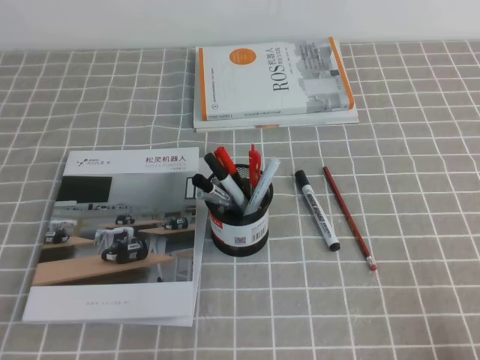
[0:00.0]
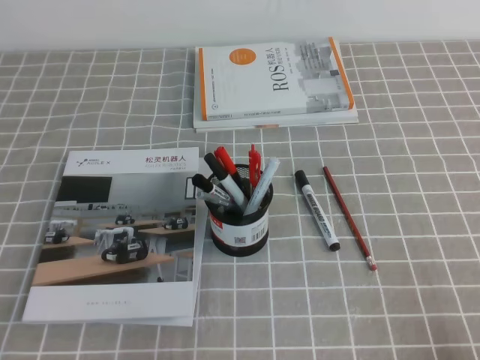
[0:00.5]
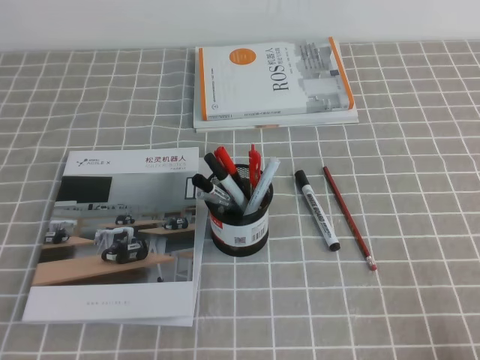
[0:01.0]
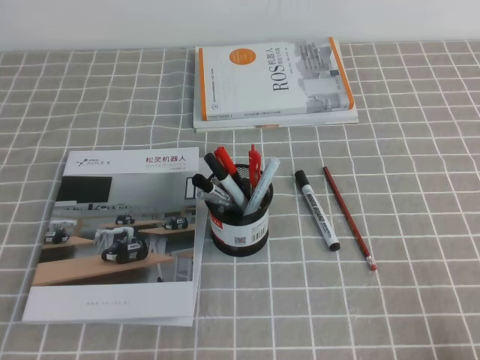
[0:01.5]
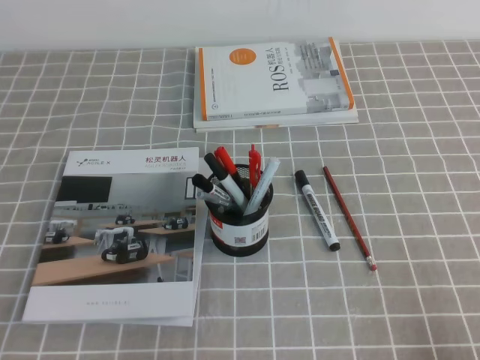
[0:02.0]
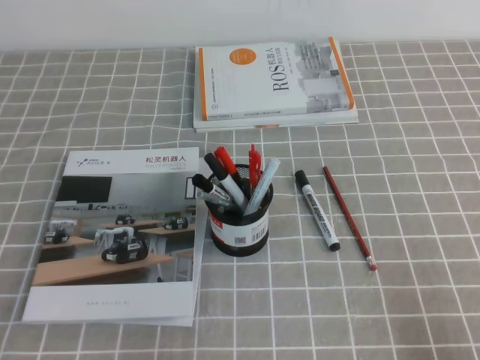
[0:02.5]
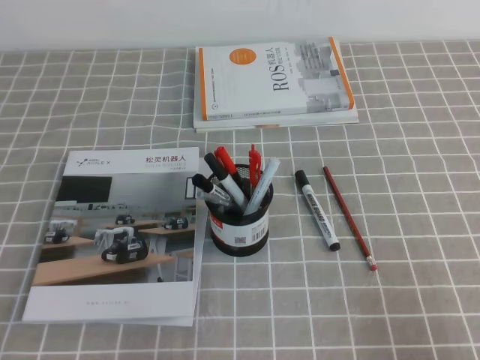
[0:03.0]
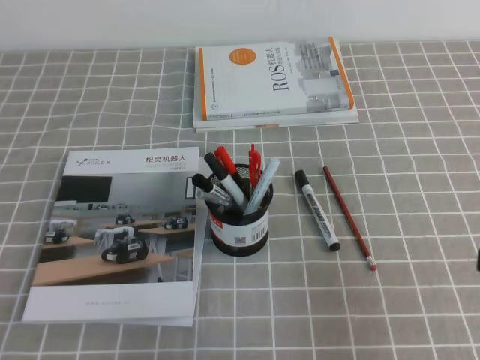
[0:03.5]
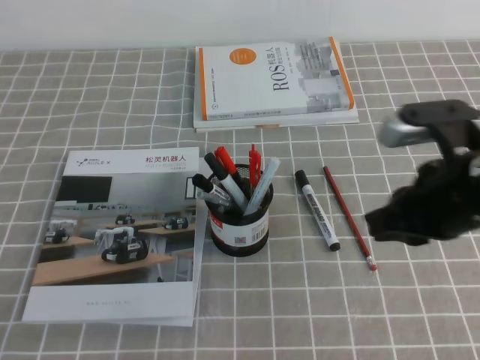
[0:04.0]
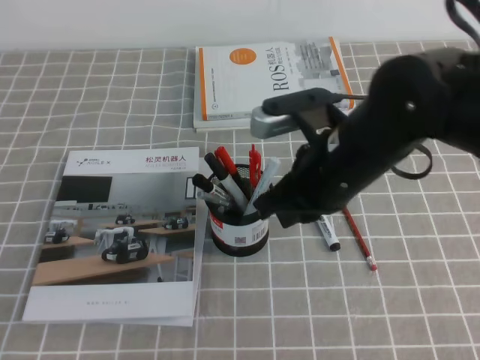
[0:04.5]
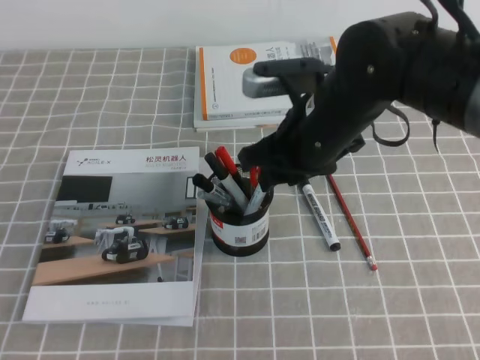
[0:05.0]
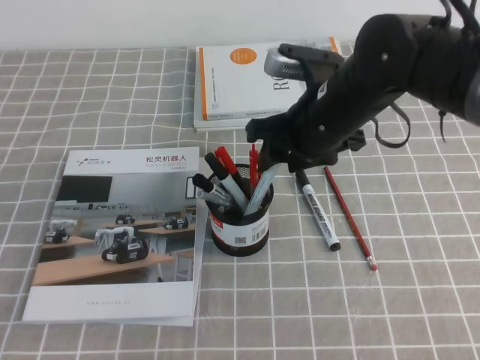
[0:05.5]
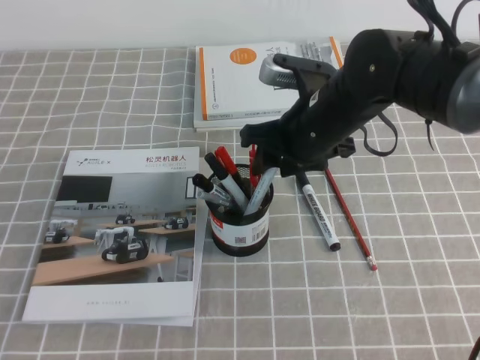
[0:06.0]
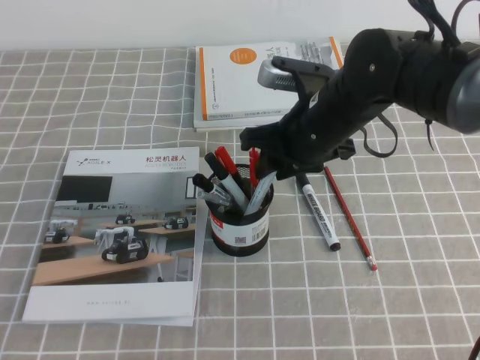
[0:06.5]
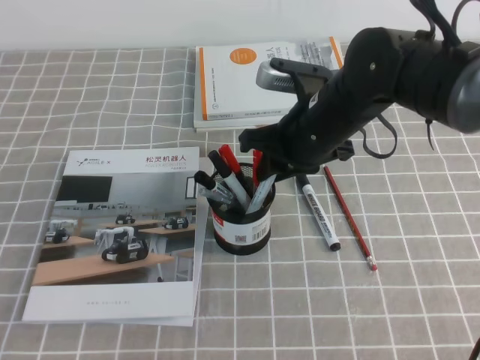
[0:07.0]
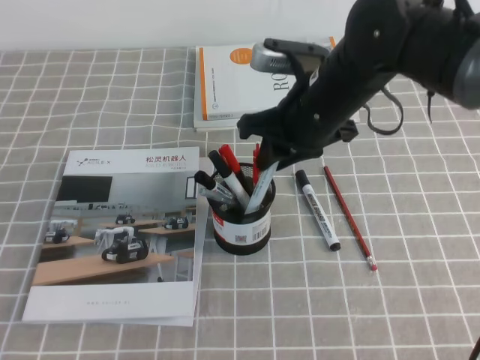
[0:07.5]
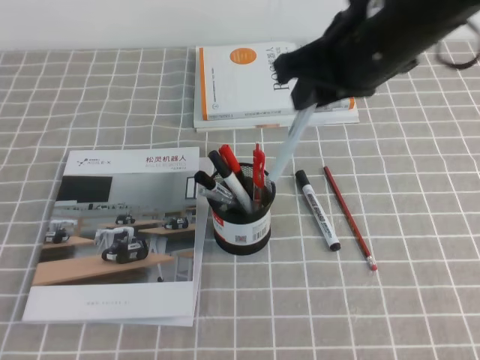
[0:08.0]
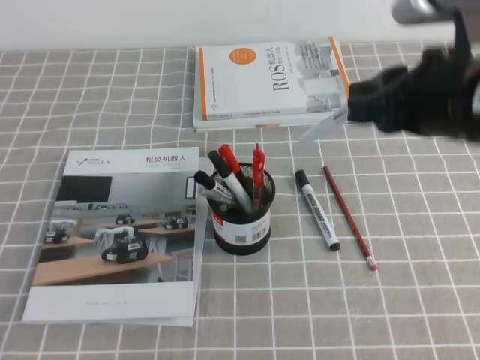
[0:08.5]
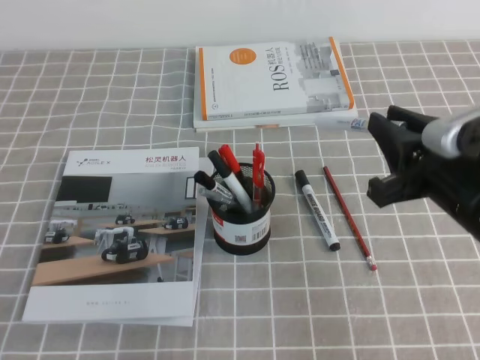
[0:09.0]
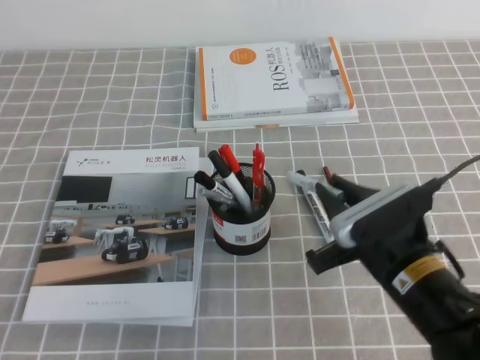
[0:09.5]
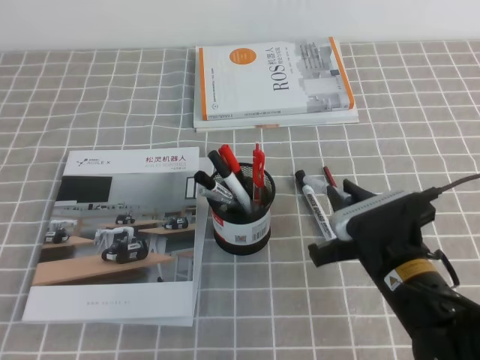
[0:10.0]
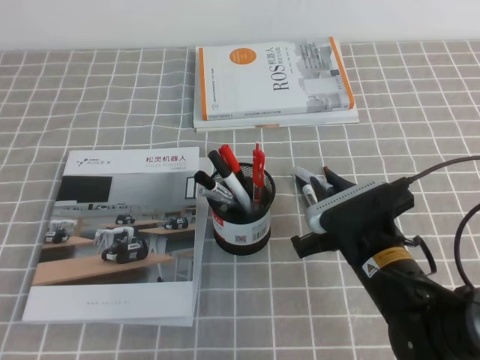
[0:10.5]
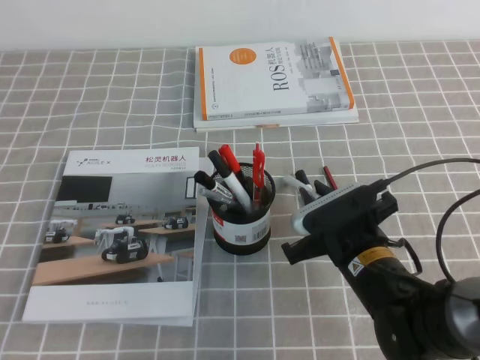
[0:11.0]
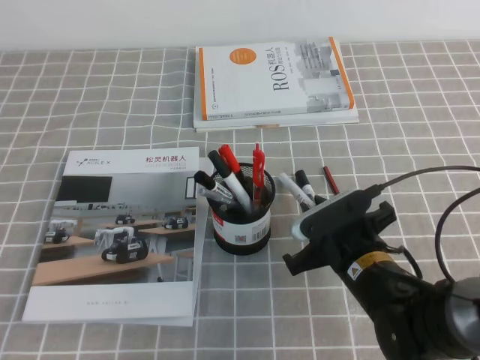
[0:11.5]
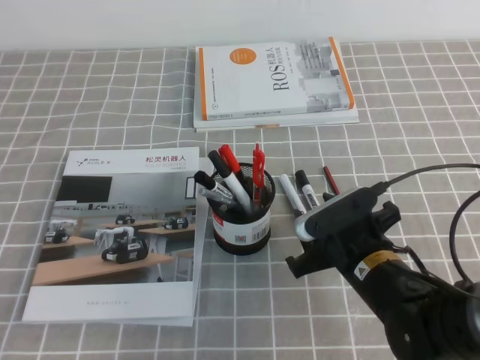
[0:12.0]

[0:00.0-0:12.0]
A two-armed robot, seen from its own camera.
0:02.0 to 0:04.0: The right gripper moves forward, upward and to the left, approximately 25 cm.
0:04.0 to 0:06.0: The right gripper heads forward and to the left, covering approximately 20 cm, and opens up.
0:06.0 to 0:08.0: The right gripper heads upward, covering some 10 cm, and closes.
0:08.0 to 0:10.0: The right gripper travels downward and backward by roughly 25 cm.
0:10.0 to 0:12.0: The right gripper opens.

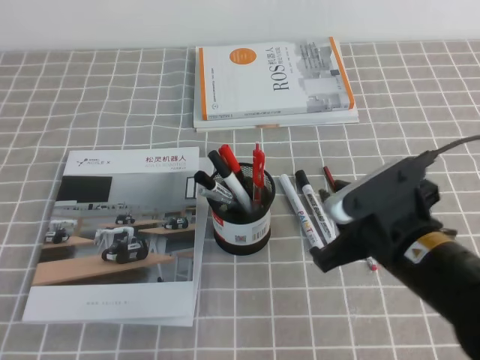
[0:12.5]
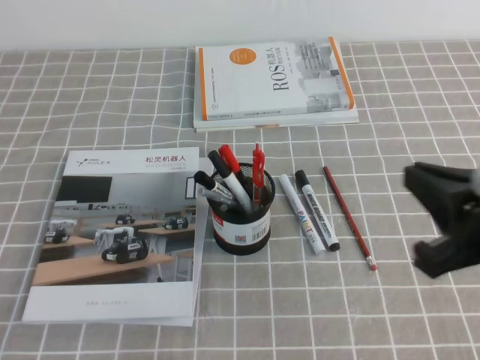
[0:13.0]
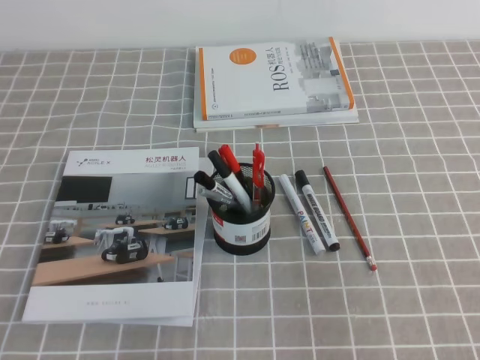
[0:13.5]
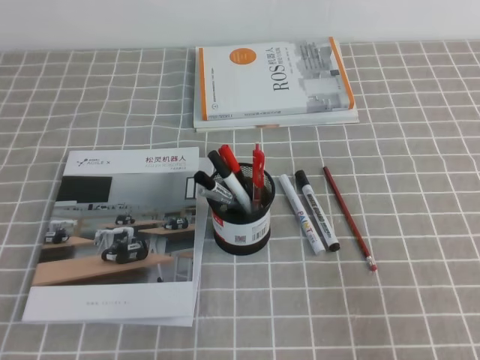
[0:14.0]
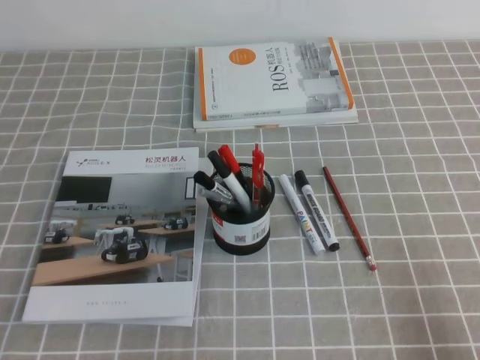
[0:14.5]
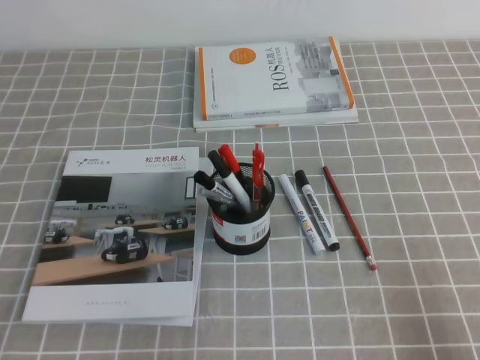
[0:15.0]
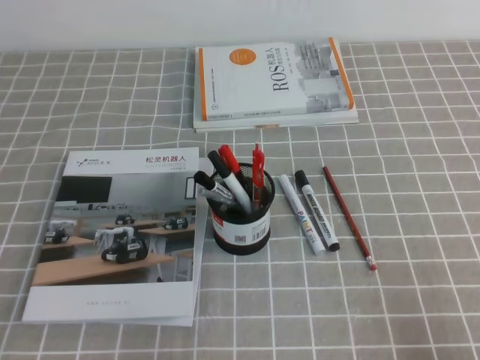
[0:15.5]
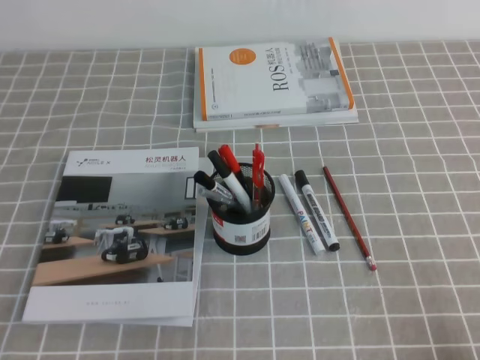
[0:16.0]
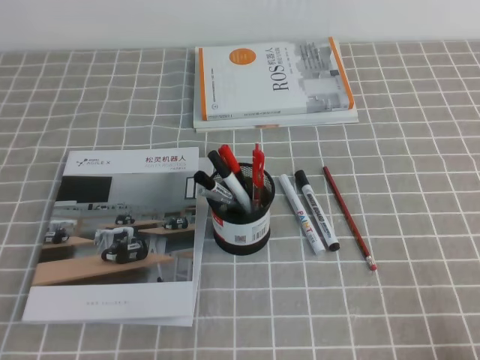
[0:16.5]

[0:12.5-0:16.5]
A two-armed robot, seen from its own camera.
Step, 0:12.5 to 0:16.5: Pick up the pen from the pen holder.
0:12.5 to 0:14.5: The right gripper moves to the right and backward, about 25 cm, and closes up.
